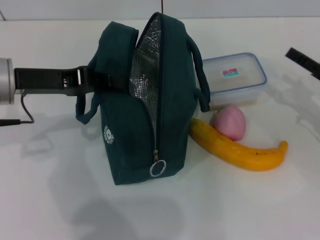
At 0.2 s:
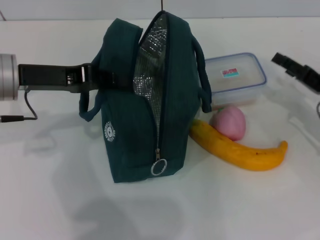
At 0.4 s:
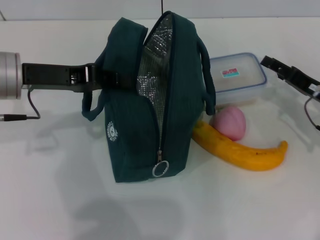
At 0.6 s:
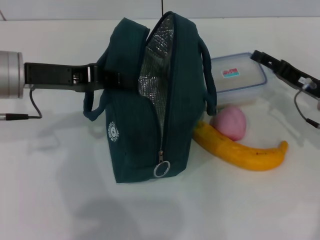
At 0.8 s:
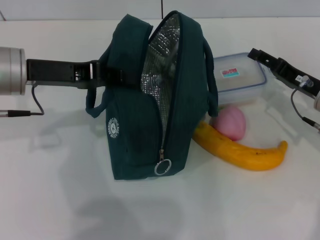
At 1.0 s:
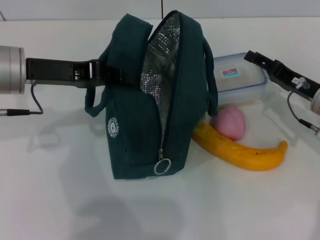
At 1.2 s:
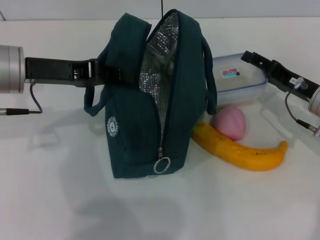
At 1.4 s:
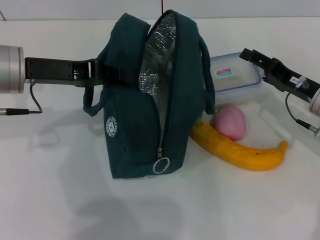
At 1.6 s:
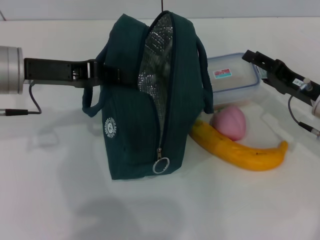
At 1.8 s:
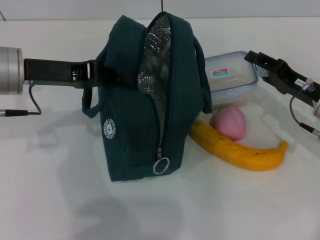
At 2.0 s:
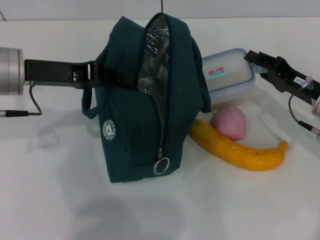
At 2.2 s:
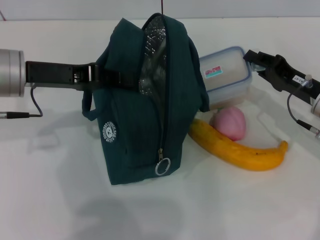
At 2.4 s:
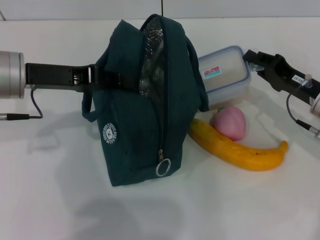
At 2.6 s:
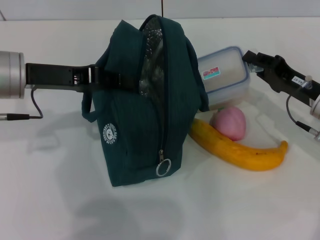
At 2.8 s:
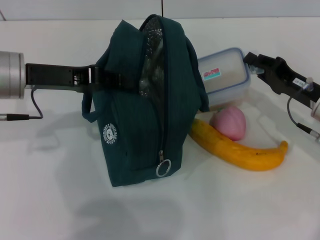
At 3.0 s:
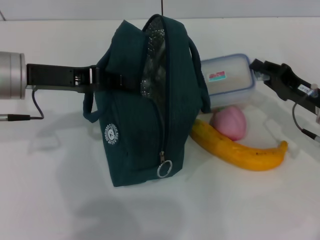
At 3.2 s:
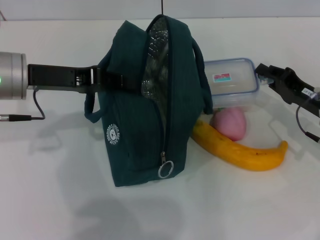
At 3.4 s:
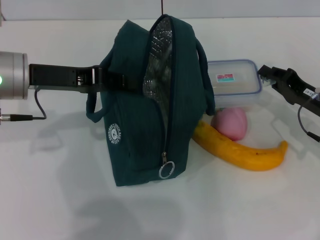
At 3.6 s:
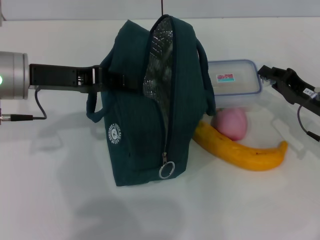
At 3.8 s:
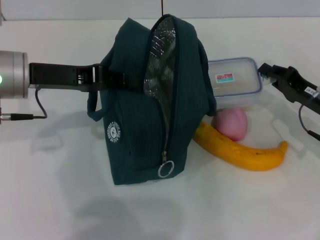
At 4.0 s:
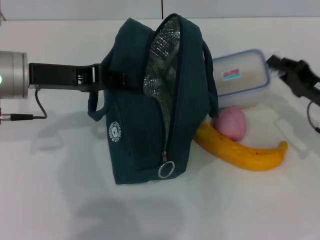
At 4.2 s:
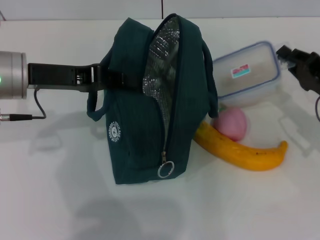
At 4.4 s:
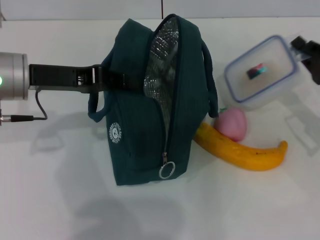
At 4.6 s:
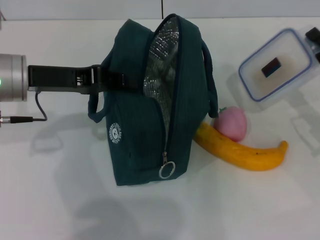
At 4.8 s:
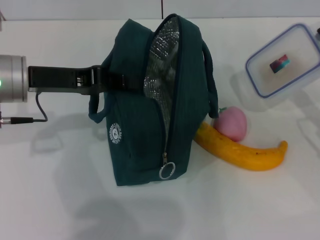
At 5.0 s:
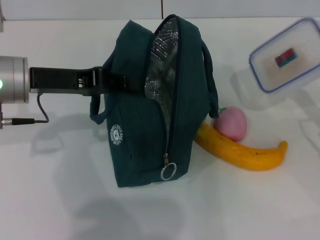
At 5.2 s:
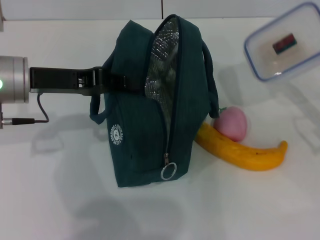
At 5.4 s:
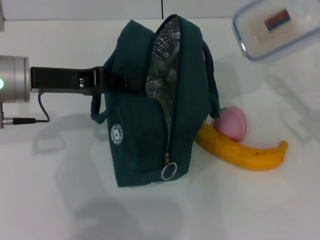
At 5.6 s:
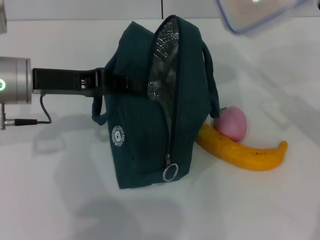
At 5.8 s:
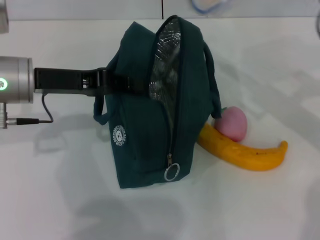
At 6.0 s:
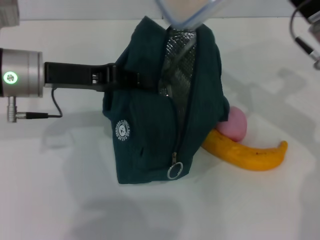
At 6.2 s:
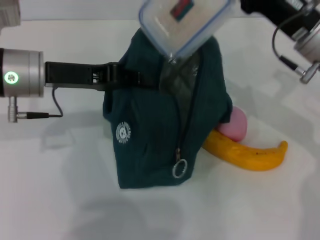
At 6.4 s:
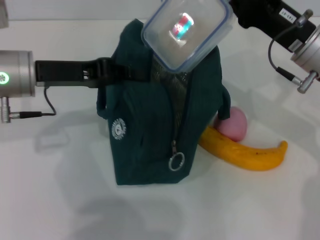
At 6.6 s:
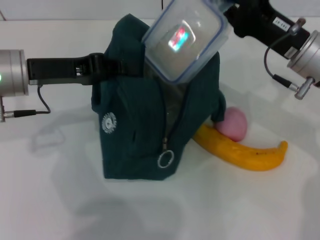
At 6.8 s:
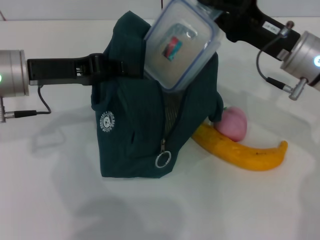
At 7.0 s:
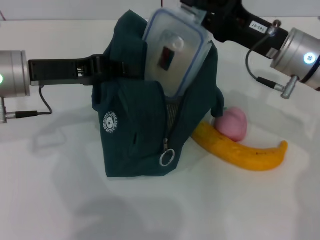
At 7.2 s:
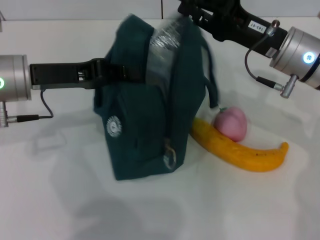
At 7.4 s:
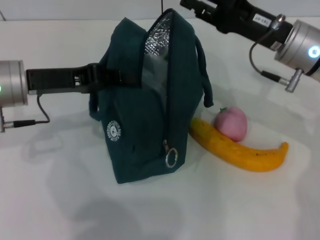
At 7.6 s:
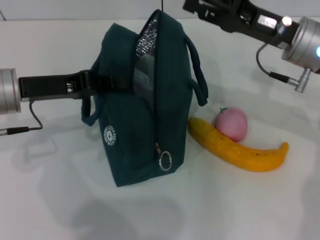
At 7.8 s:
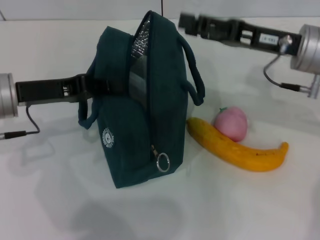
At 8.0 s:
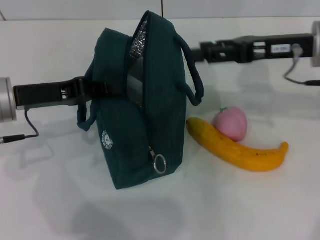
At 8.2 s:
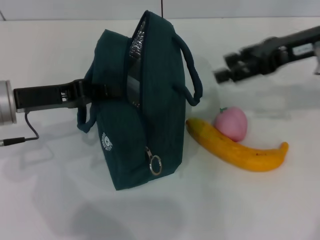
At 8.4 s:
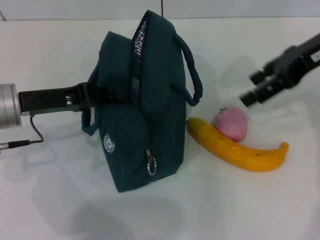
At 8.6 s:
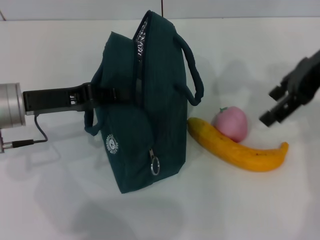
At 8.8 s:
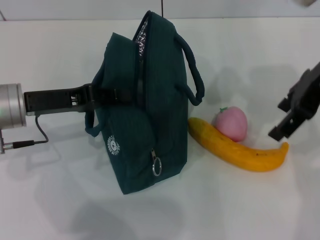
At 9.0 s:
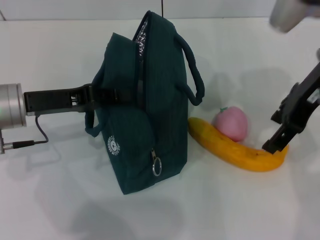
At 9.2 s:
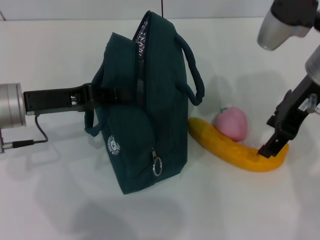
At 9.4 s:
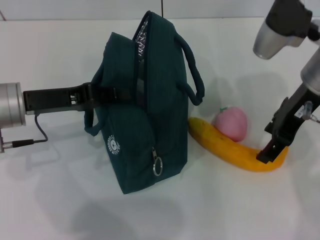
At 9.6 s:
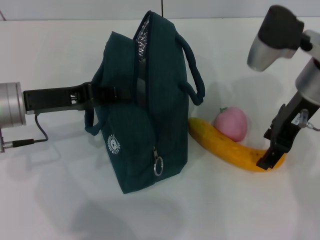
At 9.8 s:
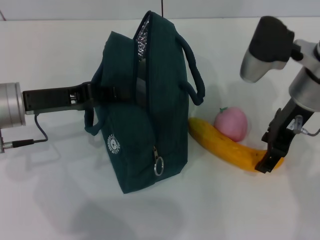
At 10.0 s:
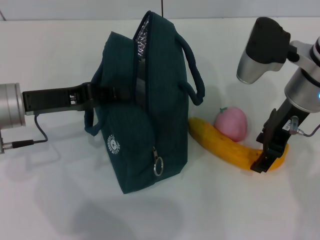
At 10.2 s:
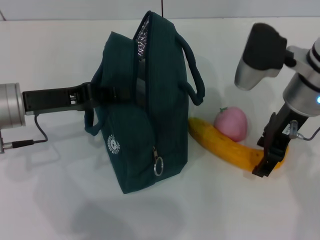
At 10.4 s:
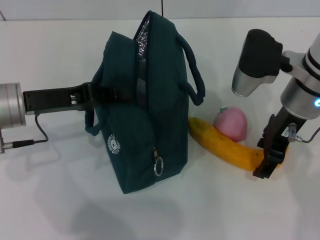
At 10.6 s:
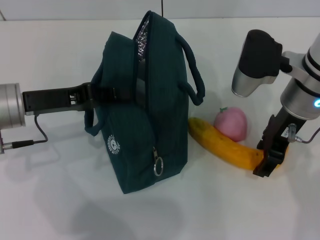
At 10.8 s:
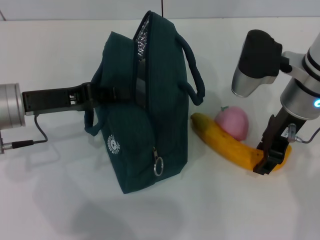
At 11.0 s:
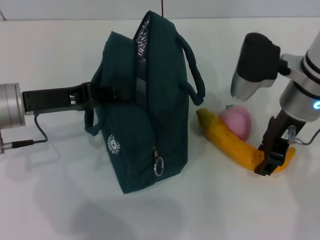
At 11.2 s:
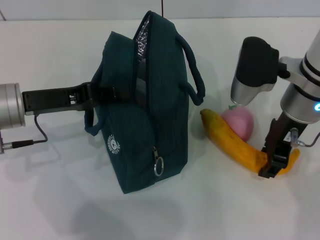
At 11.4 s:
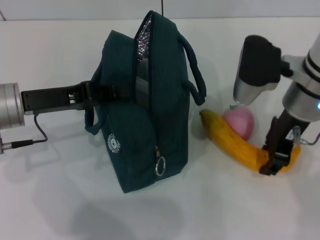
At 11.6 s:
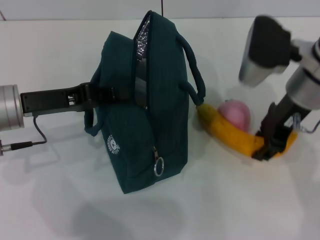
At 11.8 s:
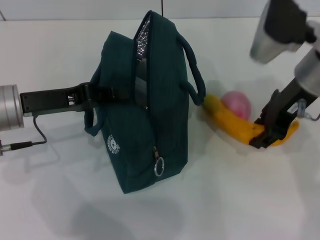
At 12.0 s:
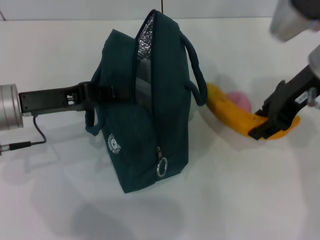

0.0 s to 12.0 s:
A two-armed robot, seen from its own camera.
Step, 0.0 to 2.4 s: Pick up the lunch box with your right hand.
Step, 2.8 to 7.4 s: Place the lunch box into the lunch bag with your right hand.
Step, 7.6 to 11.0 s: Take the banana with your right hand.
0.0 to 1.6 s: The right gripper travels to the left by approximately 5 cm.
1.6 to 3.0 s: The right gripper closes its fingers.
3.0 to 4.4 s: The grippers stay close to where they were, moving slightly.
4.4 to 6.0 s: The right gripper is displaced upward and to the left by roughly 15 cm.
6.0 to 7.6 s: The right gripper opens its fingers.
7.6 to 9.0 s: The right gripper is displaced upward by about 10 cm.
9.0 to 10.4 s: The right gripper goes about 5 cm downward.
10.4 to 12.0 s: The right gripper shifts by some 5 cm, and closes.

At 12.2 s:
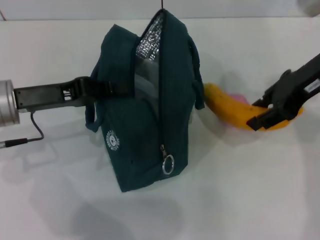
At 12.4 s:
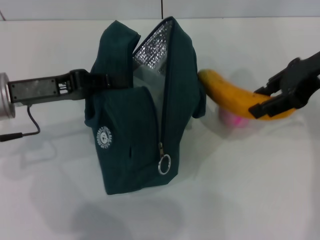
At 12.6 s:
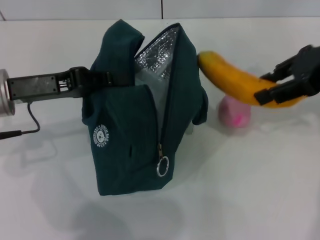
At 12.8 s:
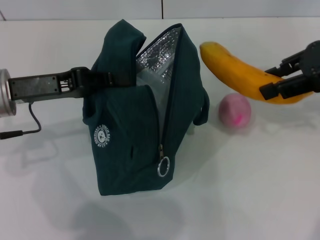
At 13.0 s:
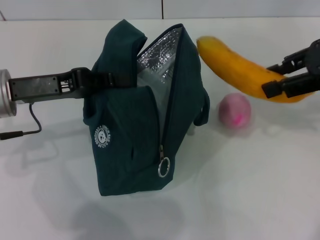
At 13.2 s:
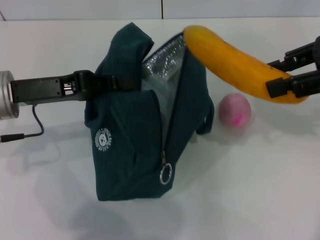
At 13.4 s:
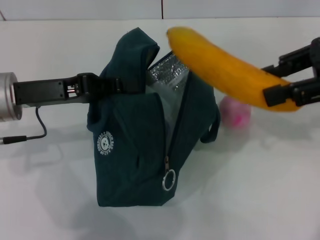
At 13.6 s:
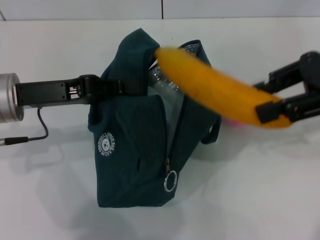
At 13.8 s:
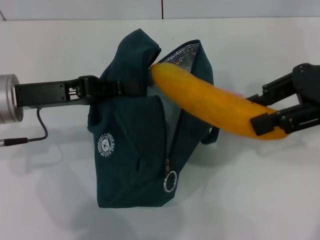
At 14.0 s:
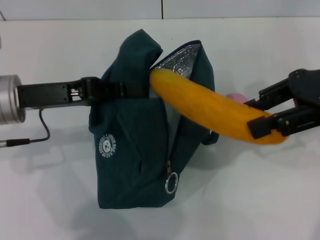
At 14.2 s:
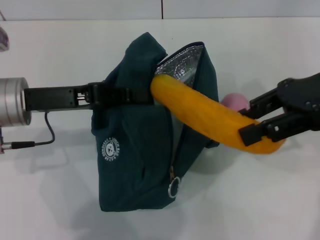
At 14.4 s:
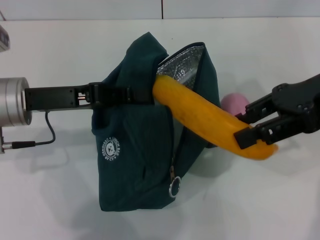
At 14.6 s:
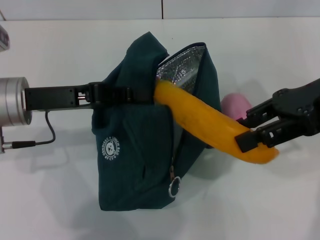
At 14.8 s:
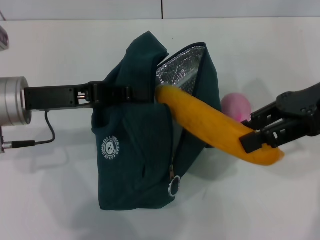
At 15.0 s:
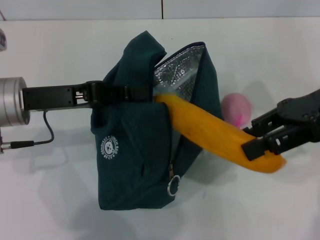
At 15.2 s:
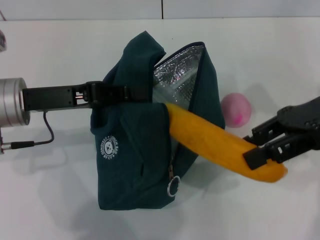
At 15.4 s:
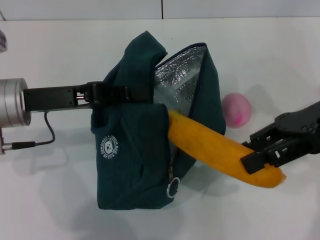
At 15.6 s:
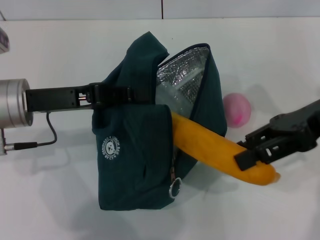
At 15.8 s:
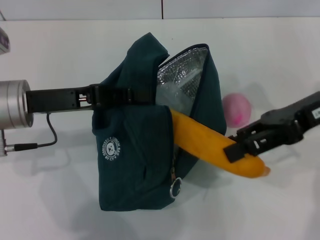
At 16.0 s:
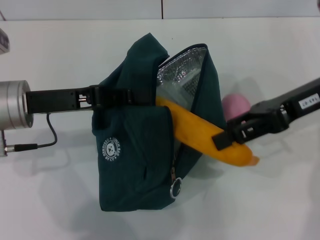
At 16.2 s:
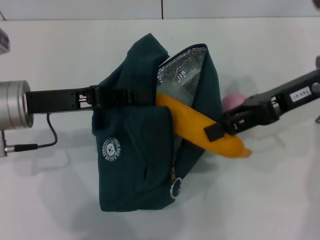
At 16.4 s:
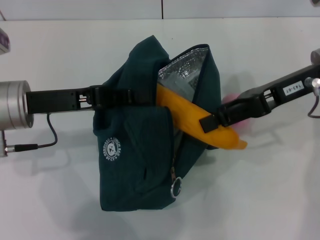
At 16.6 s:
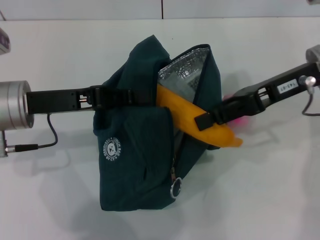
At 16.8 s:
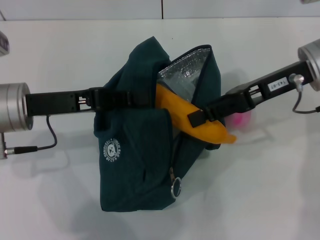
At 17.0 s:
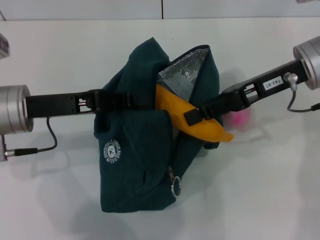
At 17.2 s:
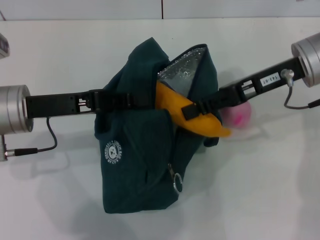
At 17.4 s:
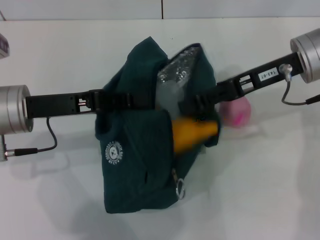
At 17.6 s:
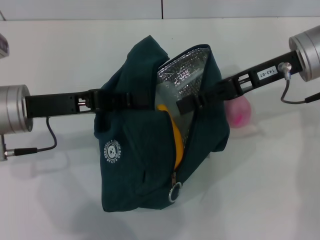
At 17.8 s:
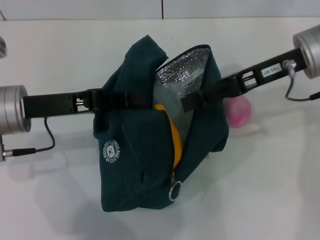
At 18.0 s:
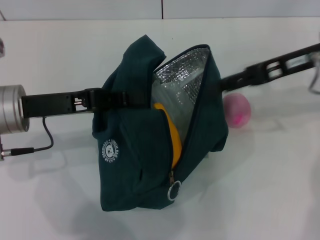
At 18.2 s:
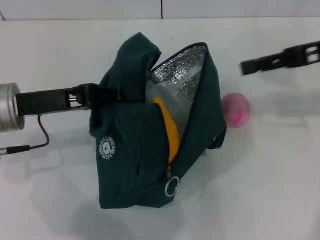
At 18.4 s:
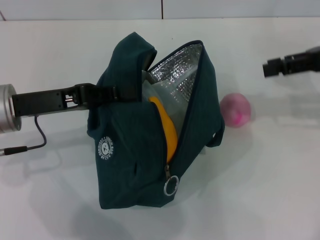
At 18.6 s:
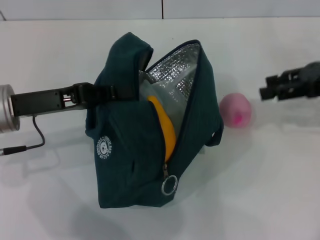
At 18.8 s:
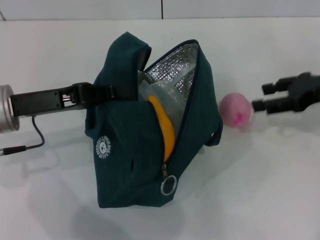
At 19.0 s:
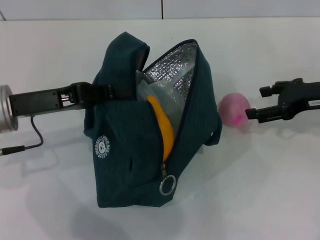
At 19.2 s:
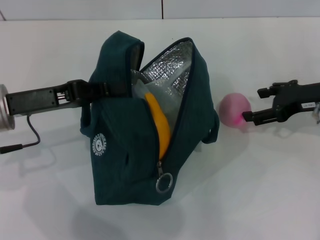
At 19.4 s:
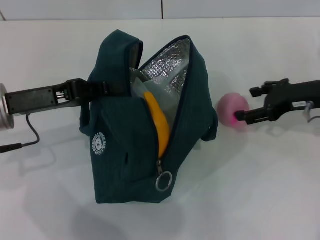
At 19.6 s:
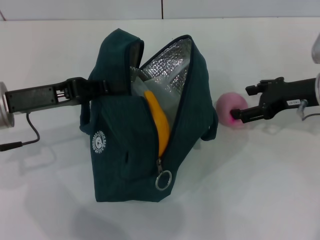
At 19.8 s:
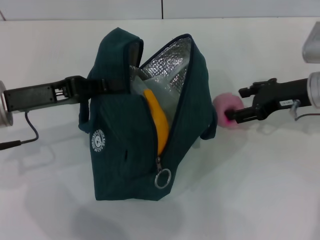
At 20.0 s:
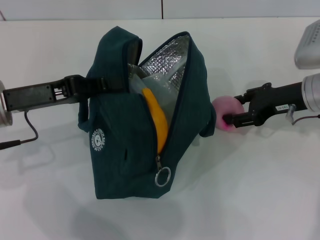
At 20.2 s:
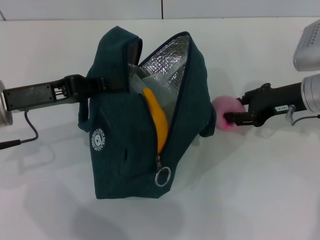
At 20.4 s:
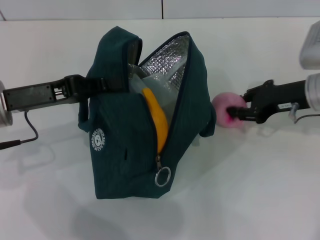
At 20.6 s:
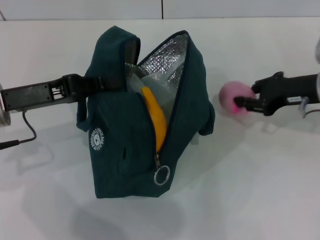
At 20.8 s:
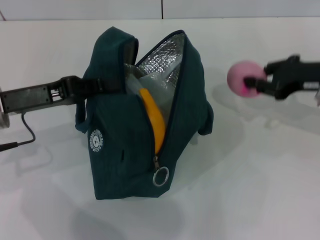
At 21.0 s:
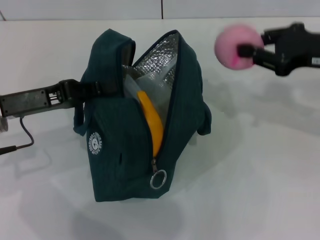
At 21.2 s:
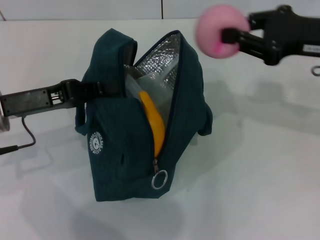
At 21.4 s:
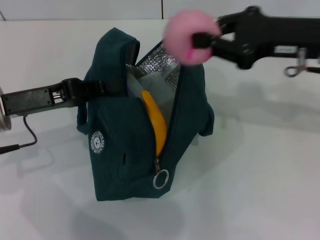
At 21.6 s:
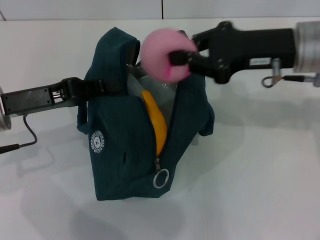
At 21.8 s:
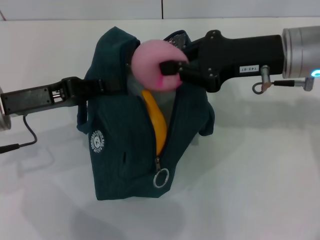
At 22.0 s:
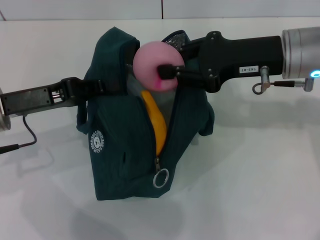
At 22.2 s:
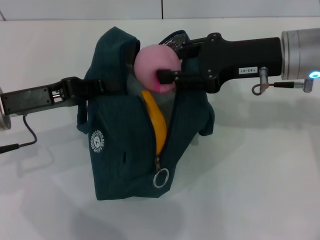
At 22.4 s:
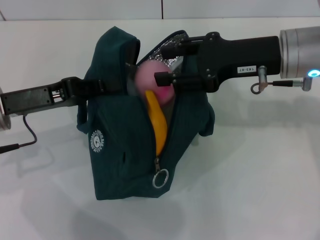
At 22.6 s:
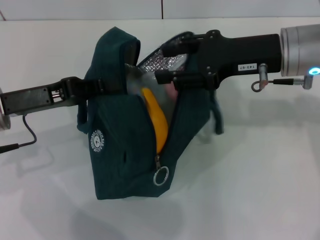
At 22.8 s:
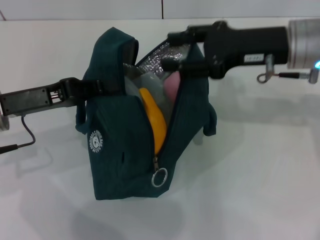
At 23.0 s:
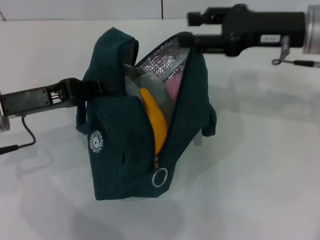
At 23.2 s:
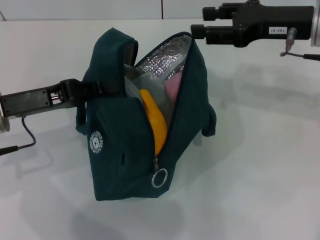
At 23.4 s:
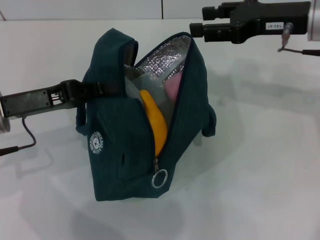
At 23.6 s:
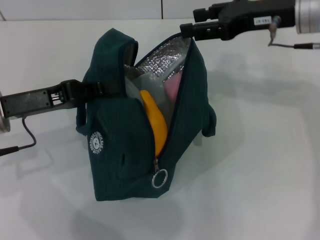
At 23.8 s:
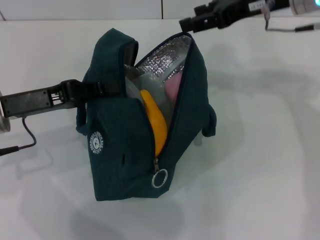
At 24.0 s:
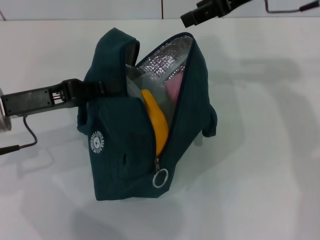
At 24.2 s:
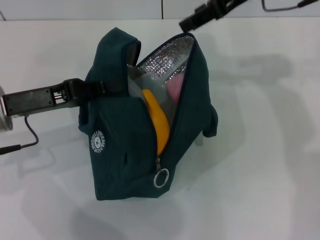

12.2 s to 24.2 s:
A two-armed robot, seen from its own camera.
Step, 12.2 to 17.8 s: Put the banana into the lunch bag with your right hand.
Step, 18.0 to 20.2 s: Grab the peach with your right hand.
12.2 to 13.8 s: The right gripper changes place by approximately 5 cm.
15.2 to 16.6 s: The right gripper moves about 5 cm.
16.6 to 18.2 s: The right gripper goes some 5 cm to the right.
18.2 to 19.8 s: The right gripper is displaced downward by approximately 10 cm.
19.8 to 21.2 s: The right gripper is displaced upward by approximately 10 cm, and closes.
21.2 to 22.6 s: The right gripper shifts about 5 cm to the left, and opens.
22.6 to 24.2 s: The right gripper is displaced upward and forward by about 10 cm.
